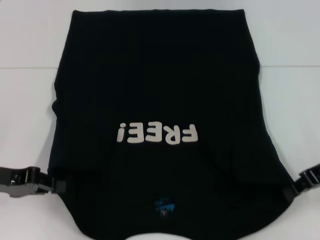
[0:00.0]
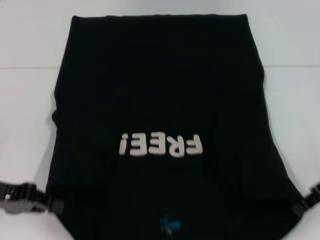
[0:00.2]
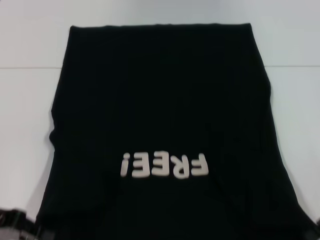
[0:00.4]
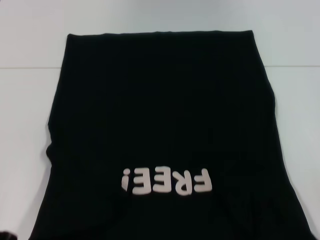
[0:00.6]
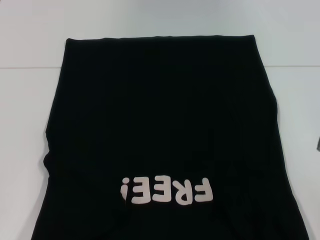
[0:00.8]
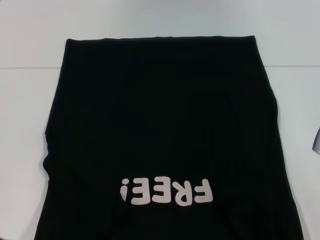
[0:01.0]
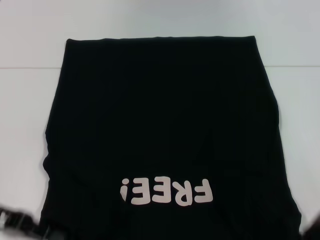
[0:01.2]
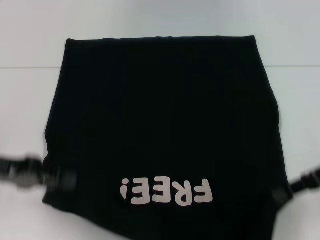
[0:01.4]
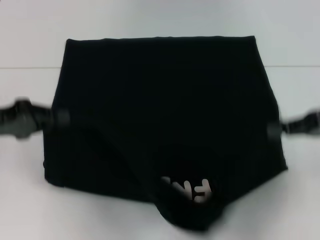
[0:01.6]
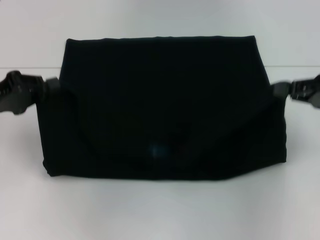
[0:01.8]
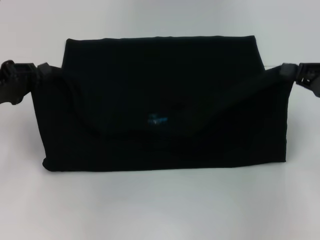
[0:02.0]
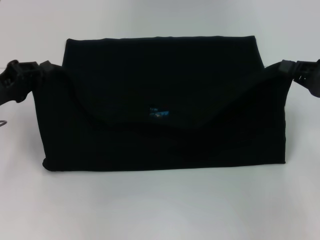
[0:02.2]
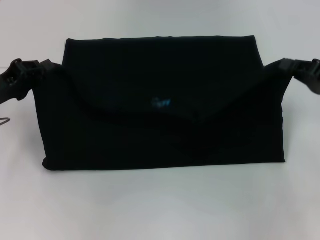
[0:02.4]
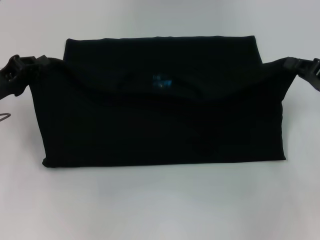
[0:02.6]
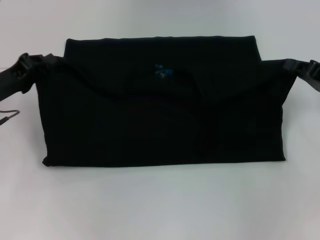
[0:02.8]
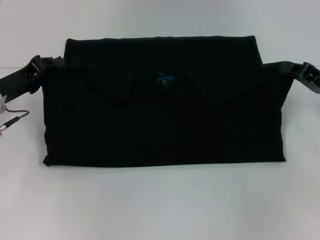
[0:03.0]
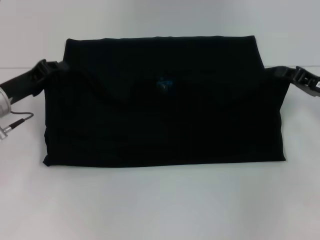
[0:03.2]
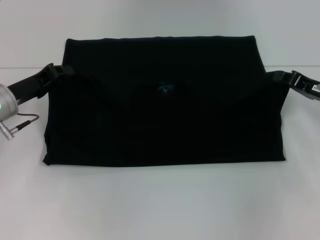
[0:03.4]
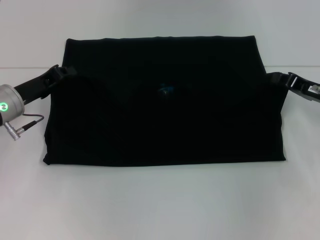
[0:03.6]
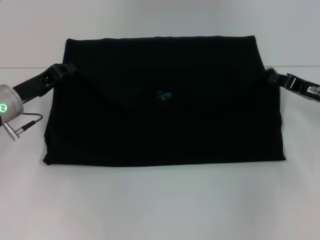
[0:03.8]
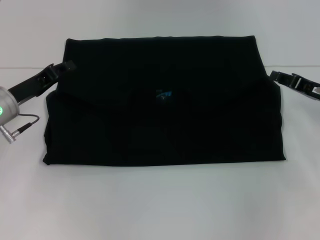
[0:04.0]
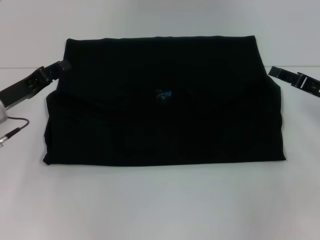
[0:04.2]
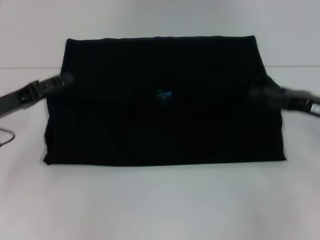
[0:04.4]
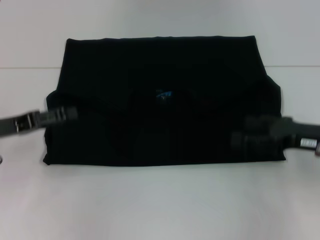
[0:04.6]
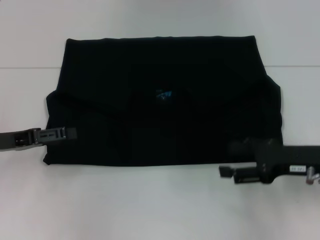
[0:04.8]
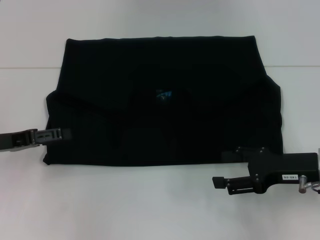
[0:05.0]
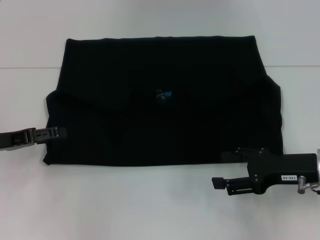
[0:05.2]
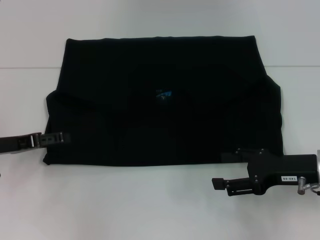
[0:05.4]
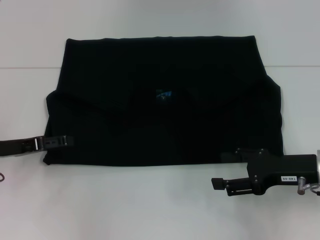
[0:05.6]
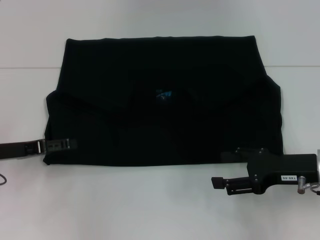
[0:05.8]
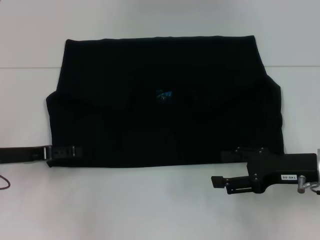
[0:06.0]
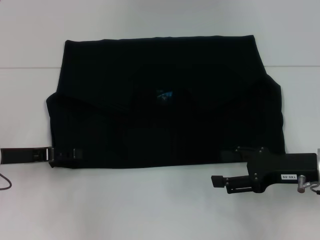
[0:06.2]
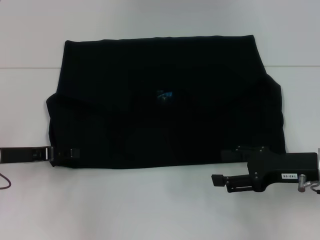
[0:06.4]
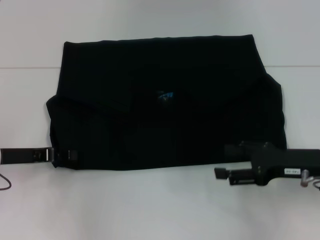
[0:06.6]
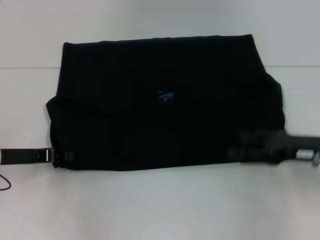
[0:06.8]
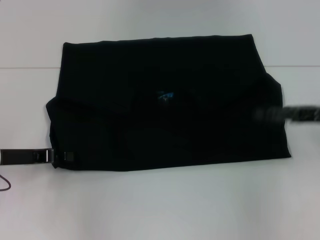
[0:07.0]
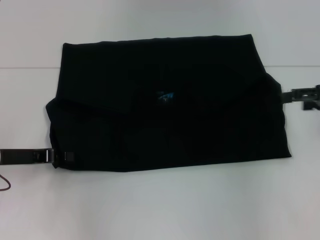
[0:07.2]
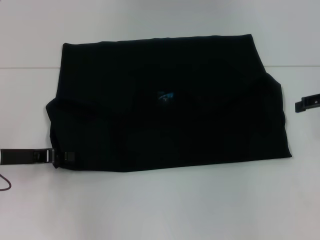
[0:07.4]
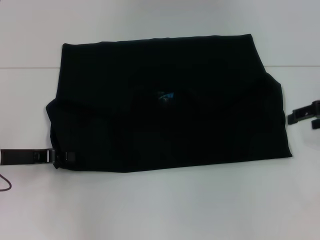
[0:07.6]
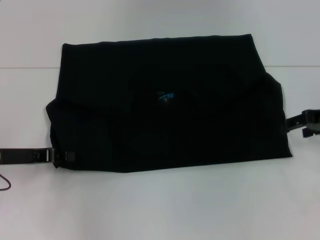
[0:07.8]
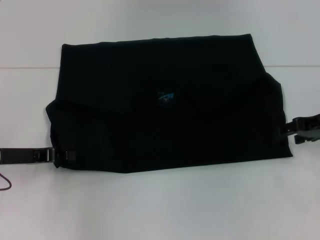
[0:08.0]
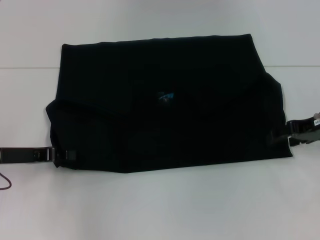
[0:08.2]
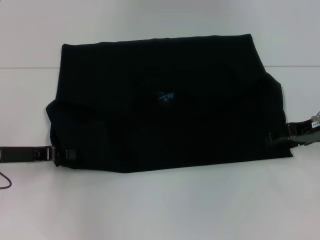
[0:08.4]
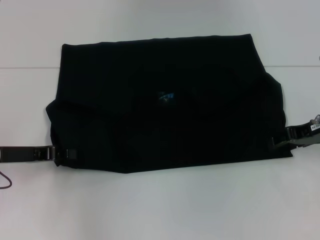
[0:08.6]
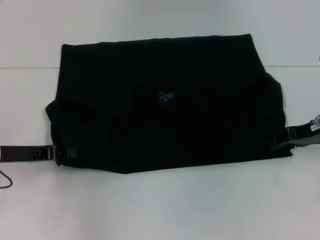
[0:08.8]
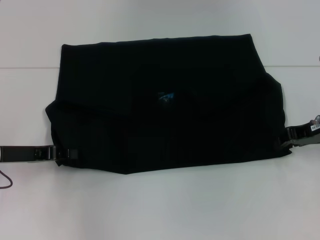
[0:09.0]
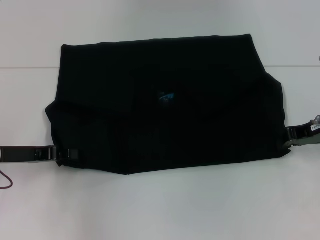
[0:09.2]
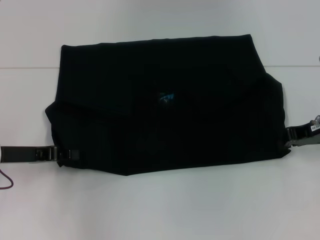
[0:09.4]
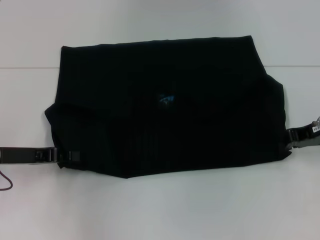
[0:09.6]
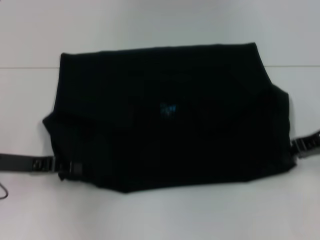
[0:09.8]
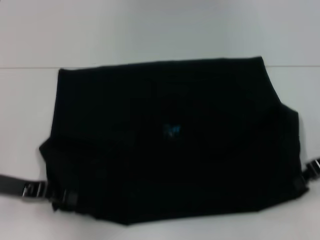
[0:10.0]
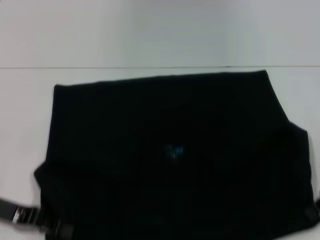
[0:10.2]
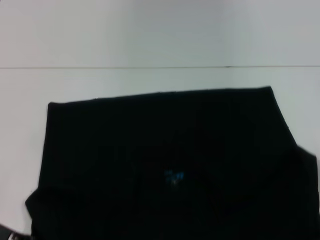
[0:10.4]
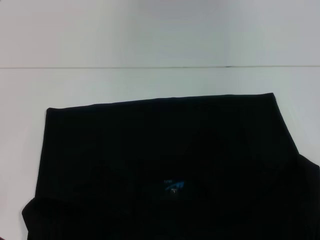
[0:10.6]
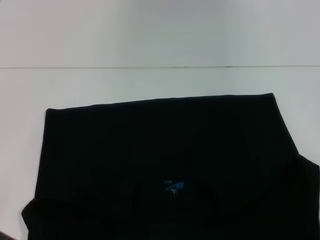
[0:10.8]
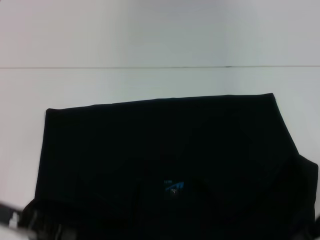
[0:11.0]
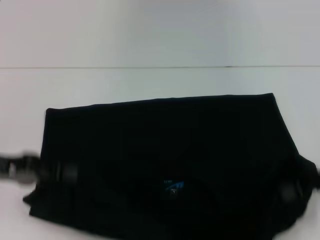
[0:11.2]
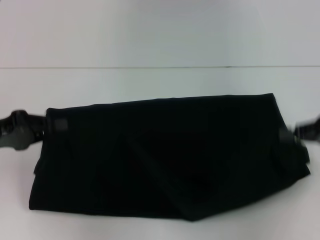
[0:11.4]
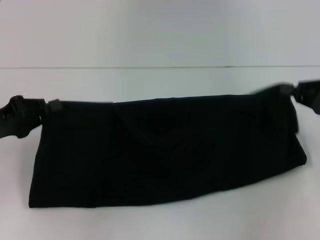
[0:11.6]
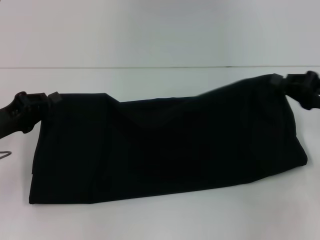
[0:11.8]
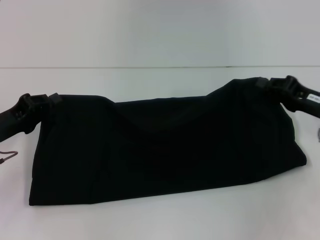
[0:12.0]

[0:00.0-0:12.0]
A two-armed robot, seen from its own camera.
Step, 0:00.0 to 0:04.0: Fold the clothes with your left hand.
Step, 0:00.0 to 0:04.0: Fold the clothes with your right hand.
Step, 0:04.2 to 0:10.4: Pull the clothes with your left hand.
Step, 0:04.2 to 0:10.4: Pull the clothes with your right hand.
0:01.6 to 0:03.0: The left gripper is displaced forward by roughly 5 cm. Meanwhile the right gripper heads downward, covering roughly 10 cm.
0:03.0 to 0:04.4: The left gripper opens up. Meanwhile the right gripper opens.
0:04.4 to 0:06.0: The left gripper opens up; the right gripper shifts by roughly 5 cm.
0:06.0 to 0:07.6: The right gripper heads forward, upward and to the right, covering some 15 cm. The left gripper closes its fingers.
0:07.6 to 0:09.0: The right gripper changes place by some 5 cm, and closes.
0:09.0 to 0:10.4: The two grippers go some 5 cm backward. The right gripper closes up.
0:10.4 to 0:12.0: The left gripper travels forward by roughly 5 cm; the right gripper ends up roughly 5 cm from where it was.

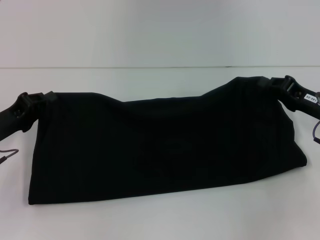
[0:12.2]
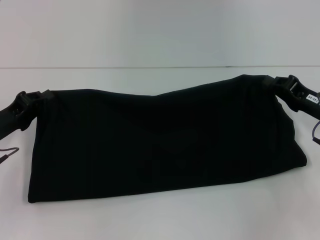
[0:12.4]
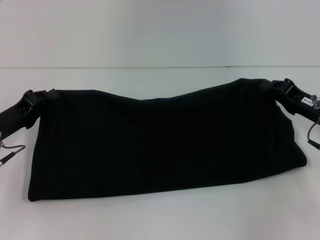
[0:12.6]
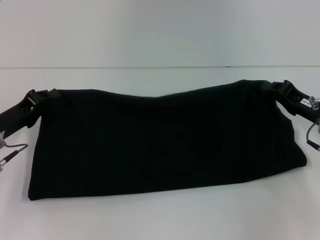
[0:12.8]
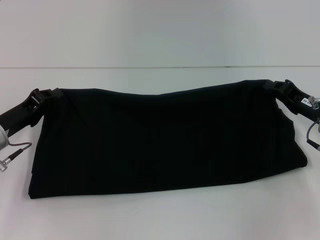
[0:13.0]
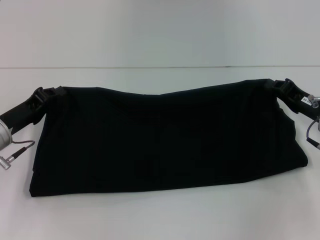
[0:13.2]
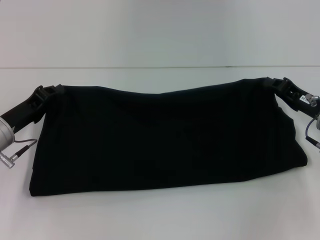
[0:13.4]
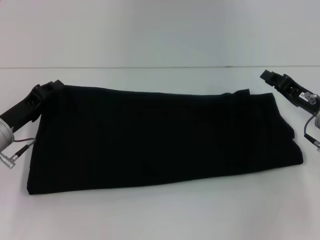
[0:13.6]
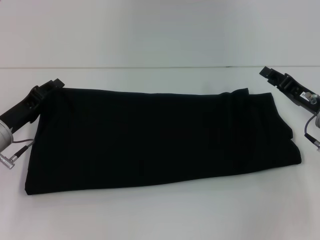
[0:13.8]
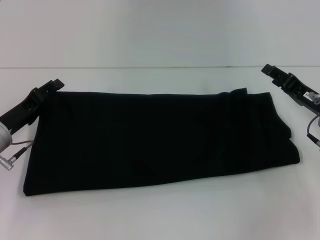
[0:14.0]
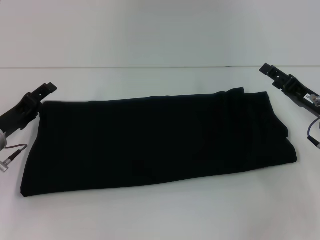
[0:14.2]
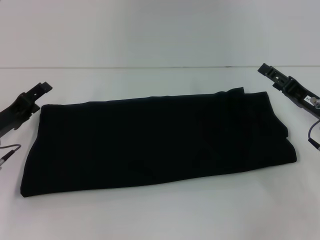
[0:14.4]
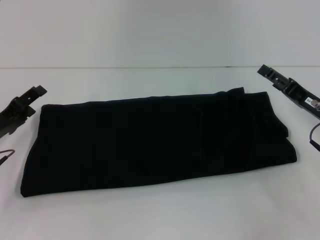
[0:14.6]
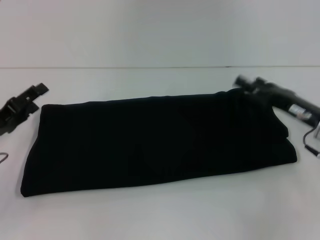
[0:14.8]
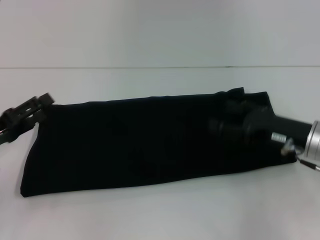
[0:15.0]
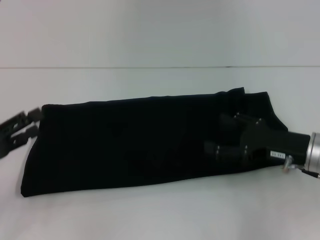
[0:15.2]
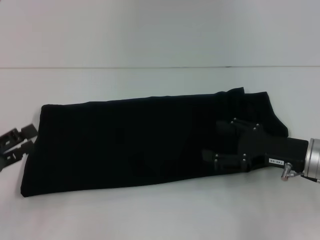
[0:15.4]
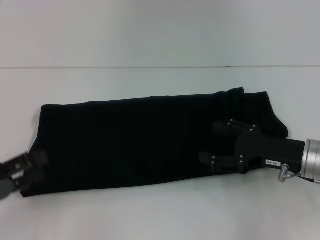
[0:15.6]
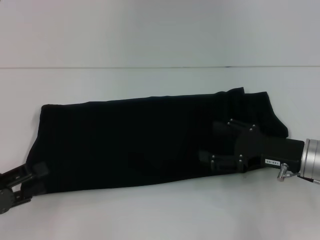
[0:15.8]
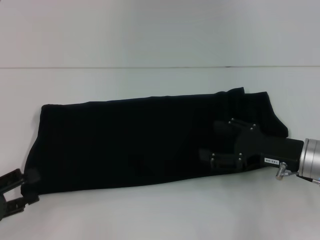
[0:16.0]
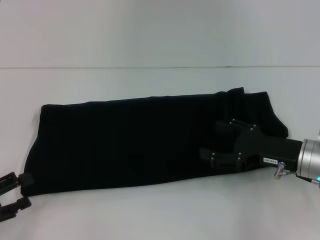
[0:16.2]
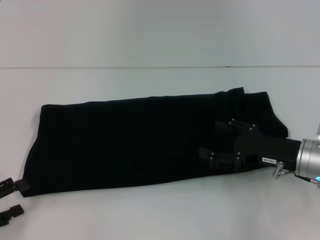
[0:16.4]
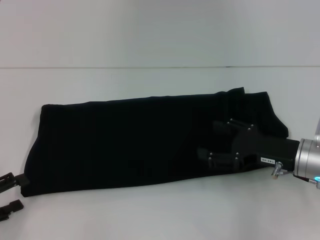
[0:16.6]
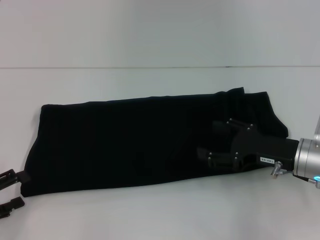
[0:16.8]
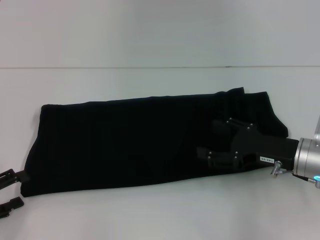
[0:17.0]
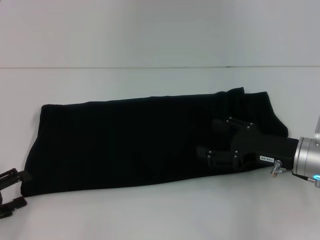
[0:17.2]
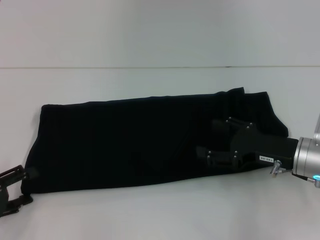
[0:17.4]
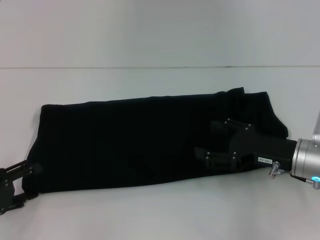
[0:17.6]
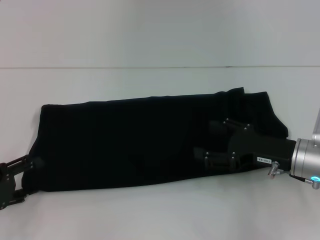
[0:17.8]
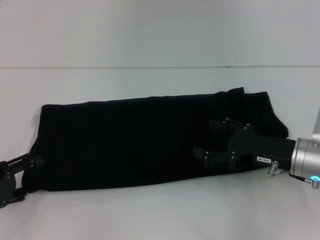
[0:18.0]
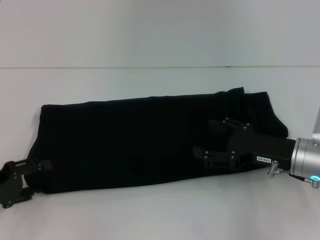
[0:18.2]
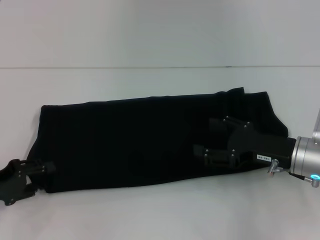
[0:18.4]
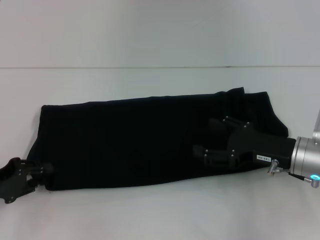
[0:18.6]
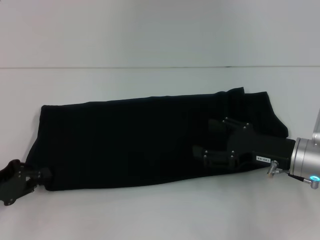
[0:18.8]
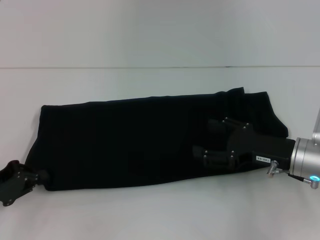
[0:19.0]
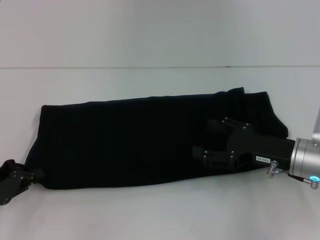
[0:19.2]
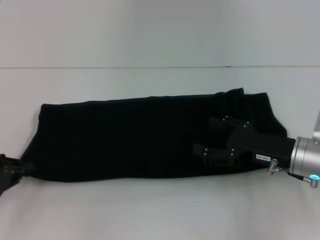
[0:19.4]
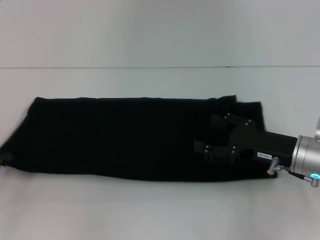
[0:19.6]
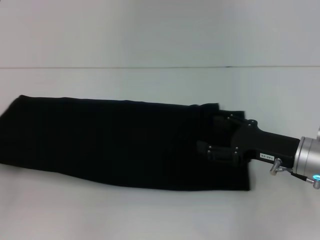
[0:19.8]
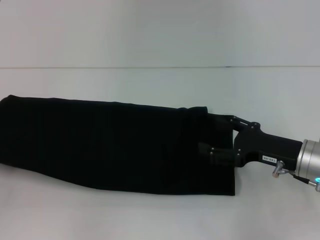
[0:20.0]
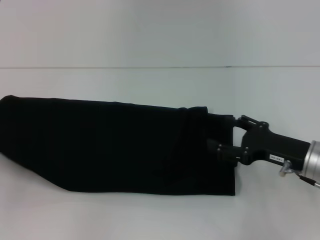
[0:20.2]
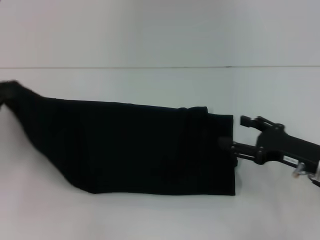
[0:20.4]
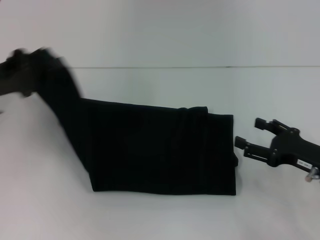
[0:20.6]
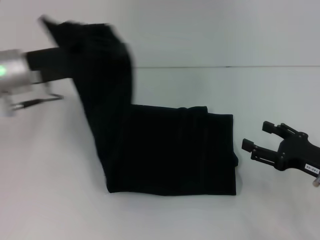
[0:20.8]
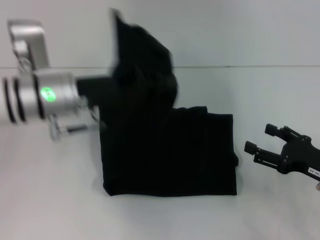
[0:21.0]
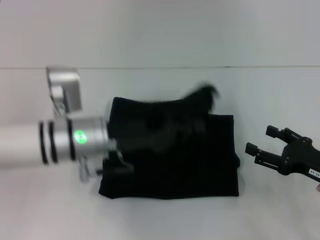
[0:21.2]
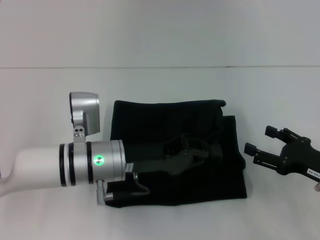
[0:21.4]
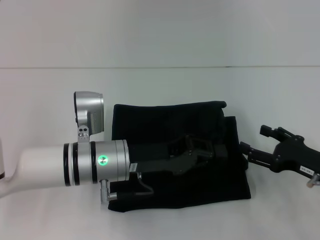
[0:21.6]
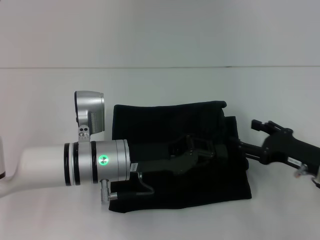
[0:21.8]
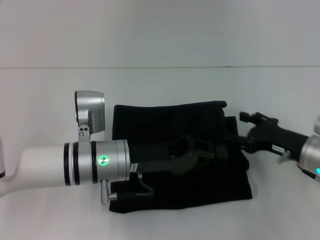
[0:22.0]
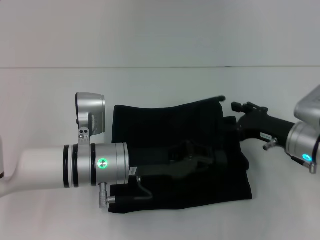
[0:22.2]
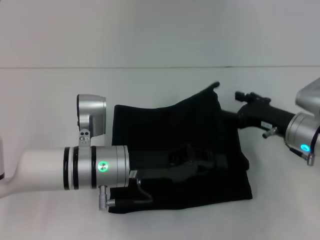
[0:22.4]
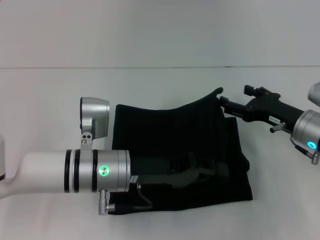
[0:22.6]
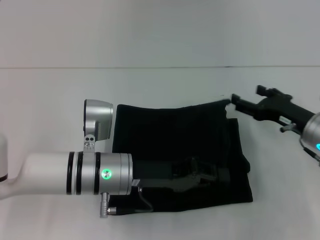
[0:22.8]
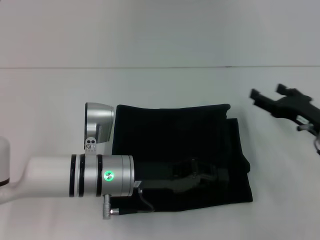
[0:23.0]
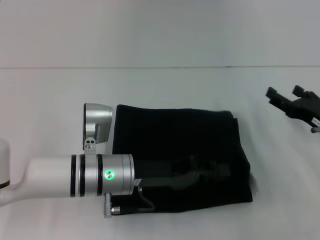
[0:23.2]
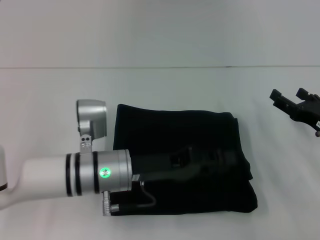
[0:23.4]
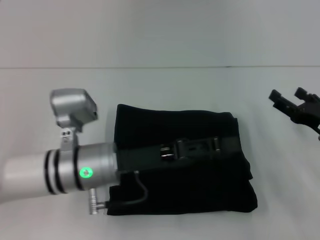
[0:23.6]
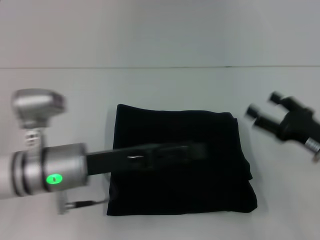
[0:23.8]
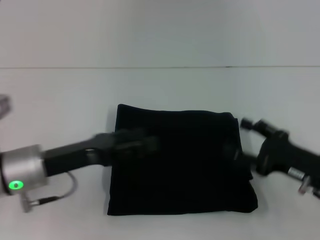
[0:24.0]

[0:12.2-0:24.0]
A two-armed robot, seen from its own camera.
Step, 0:12.2 to 0:14.0: Fold the clothes with your right hand.
Step, 0:12.2 to 0:23.2: Fold the clothes with your left hand.
0:12.2 to 0:13.6: The grippers make only small movements.
0:13.6 to 0:15.2: The right gripper moves about 5 cm, and opens; the left gripper goes approximately 10 cm backward and to the left, and opens.
0:15.2 to 0:16.6: The left gripper moves backward, approximately 5 cm.
0:16.6 to 0:18.2: The left gripper shifts by roughly 5 cm.
0:18.2 to 0:19.6: The left gripper closes up.
0:19.6 to 0:21.0: The right gripper is displaced to the right by approximately 5 cm. The left gripper goes approximately 25 cm to the right and forward.
0:21.0 to 0:22.6: The left gripper is displaced downward, to the right and backward by about 10 cm. Meanwhile the right gripper travels forward and to the left by some 10 cm.
0:22.6 to 0:24.0: The right gripper goes about 10 cm backward. The left gripper heads to the left, covering approximately 10 cm, and opens up.
